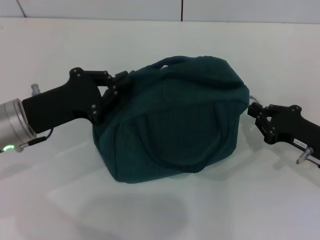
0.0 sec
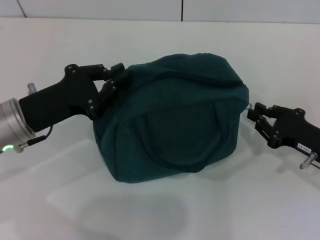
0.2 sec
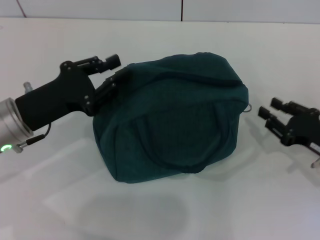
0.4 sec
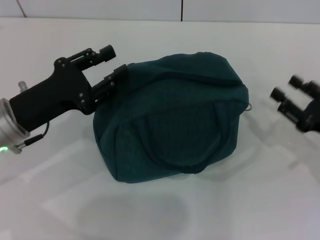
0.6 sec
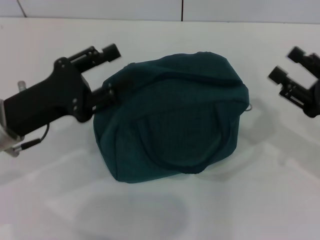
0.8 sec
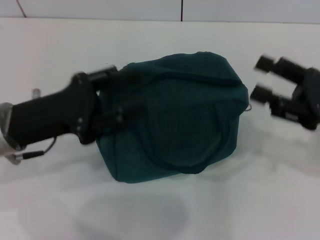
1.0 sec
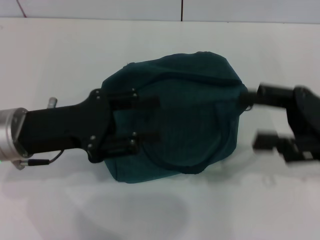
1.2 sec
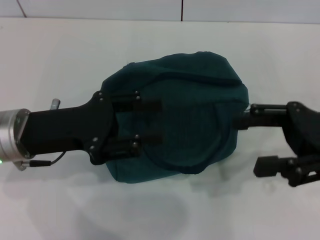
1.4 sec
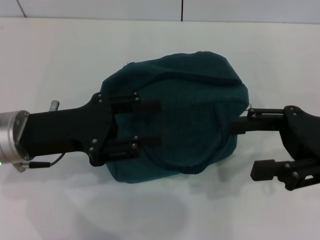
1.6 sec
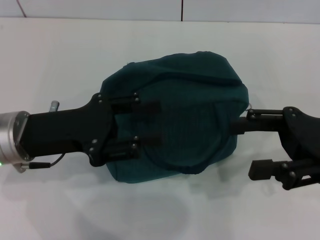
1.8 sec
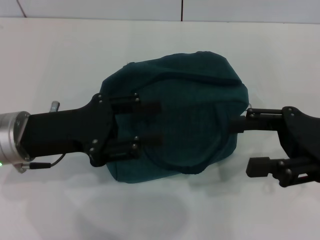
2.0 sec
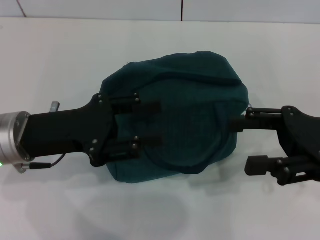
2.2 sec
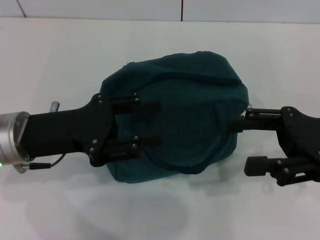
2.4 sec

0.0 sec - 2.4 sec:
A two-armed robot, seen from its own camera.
Step, 0.2 sec - 0.6 sec: Hold the lunch bag with your left hand.
0.0 sec - 1.2 sec: The right gripper goes some 10 cm upward, and opens its fingers; the left gripper opens up.
1.2 sec - 2.4 sec: The grippers make only small movements.

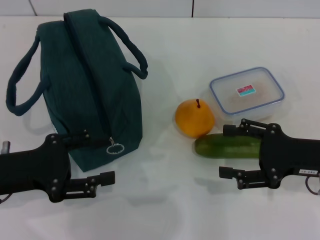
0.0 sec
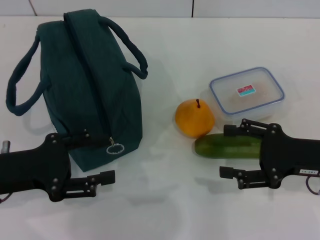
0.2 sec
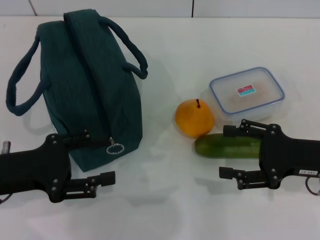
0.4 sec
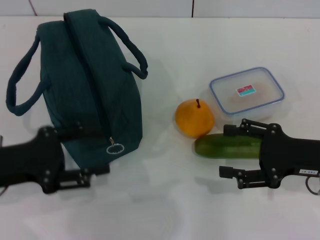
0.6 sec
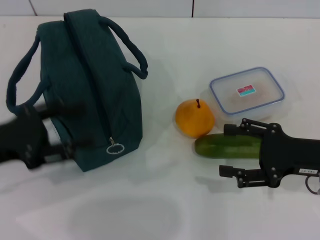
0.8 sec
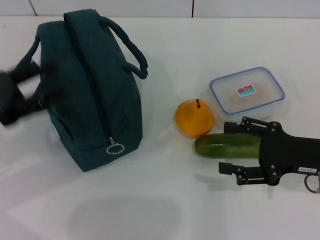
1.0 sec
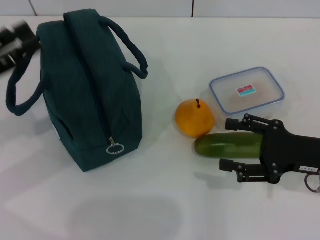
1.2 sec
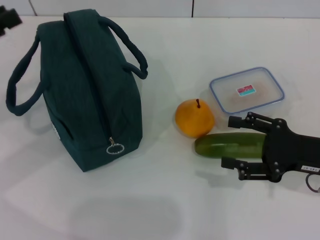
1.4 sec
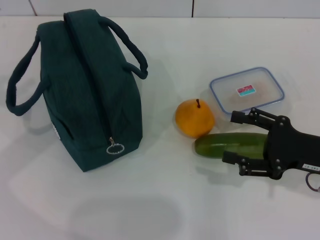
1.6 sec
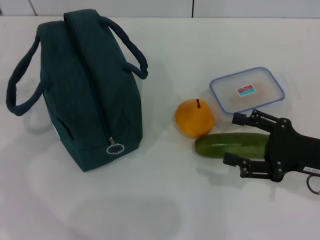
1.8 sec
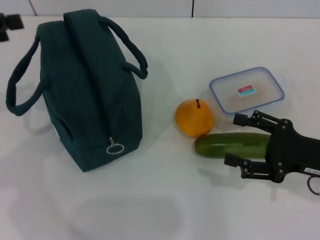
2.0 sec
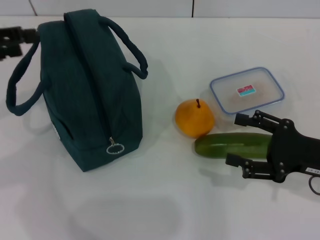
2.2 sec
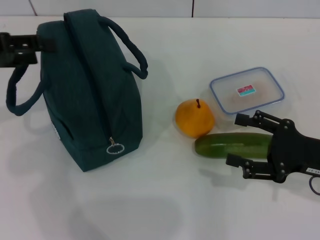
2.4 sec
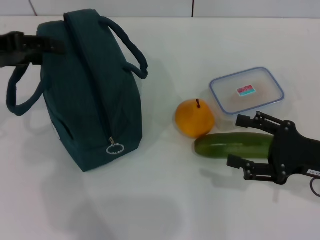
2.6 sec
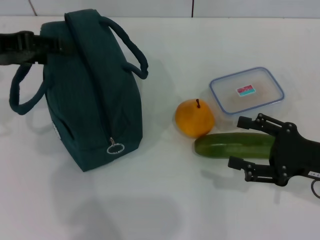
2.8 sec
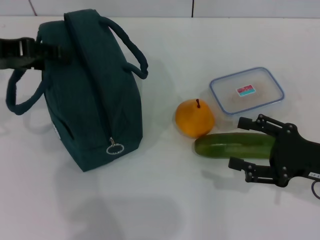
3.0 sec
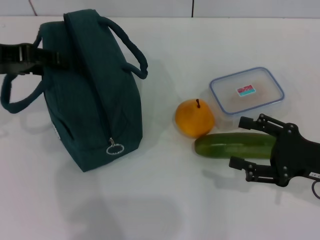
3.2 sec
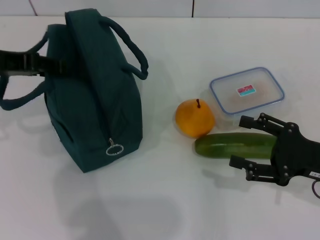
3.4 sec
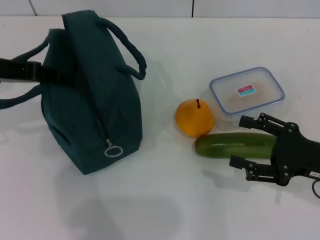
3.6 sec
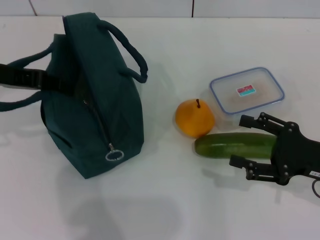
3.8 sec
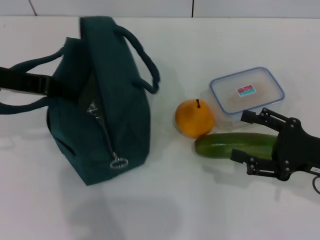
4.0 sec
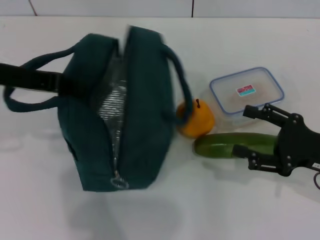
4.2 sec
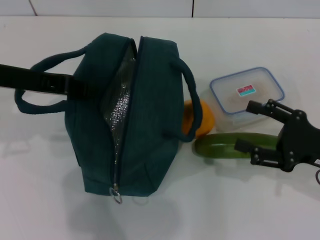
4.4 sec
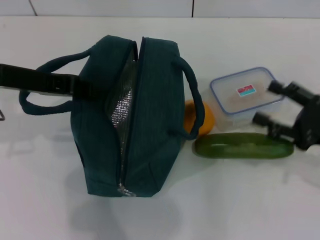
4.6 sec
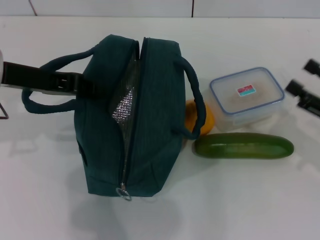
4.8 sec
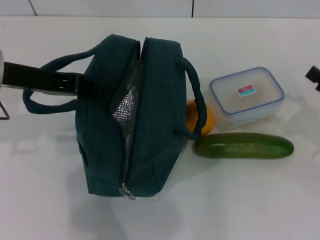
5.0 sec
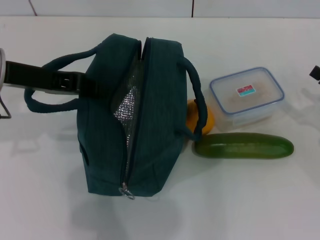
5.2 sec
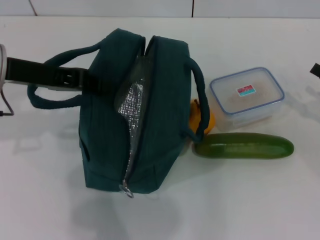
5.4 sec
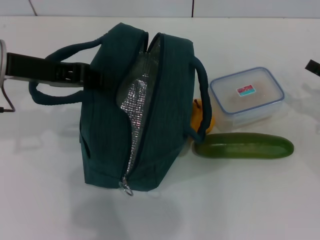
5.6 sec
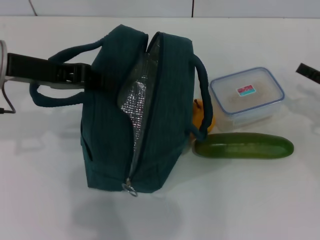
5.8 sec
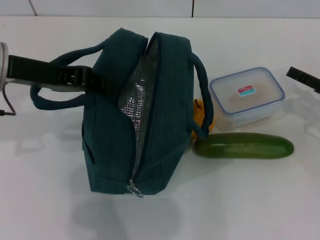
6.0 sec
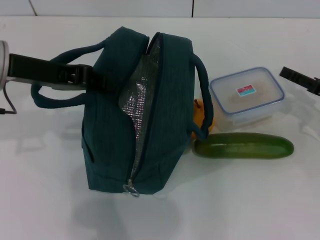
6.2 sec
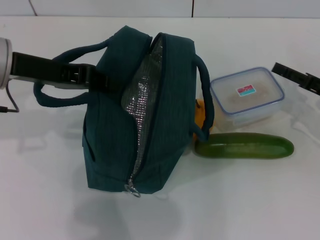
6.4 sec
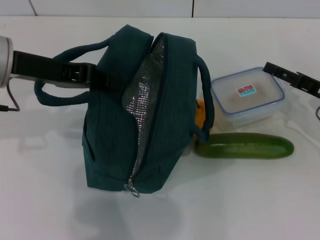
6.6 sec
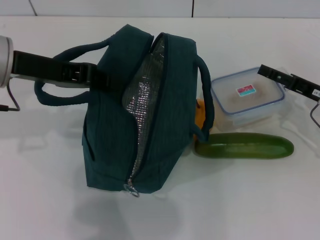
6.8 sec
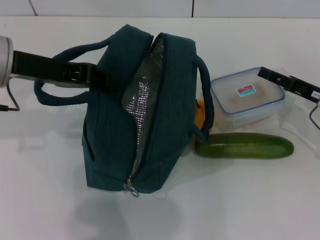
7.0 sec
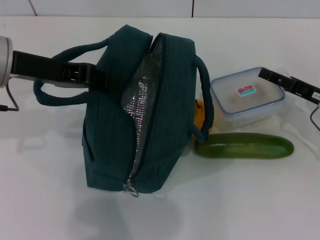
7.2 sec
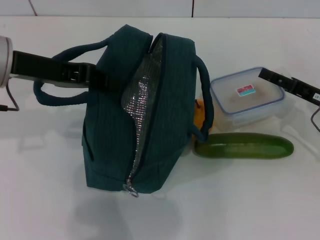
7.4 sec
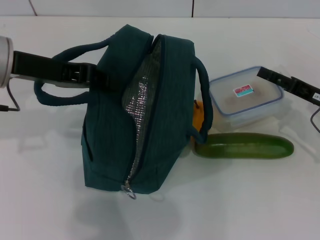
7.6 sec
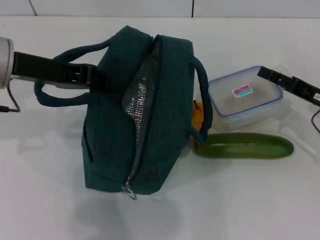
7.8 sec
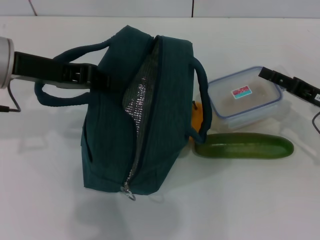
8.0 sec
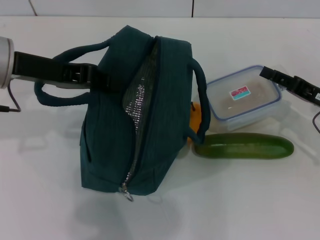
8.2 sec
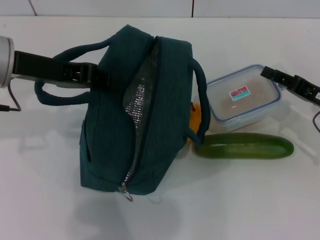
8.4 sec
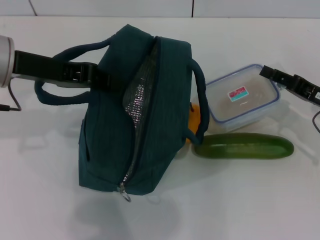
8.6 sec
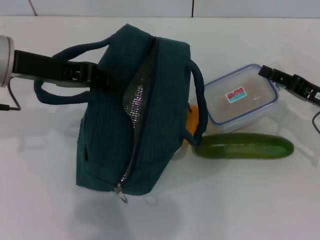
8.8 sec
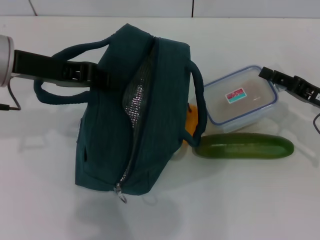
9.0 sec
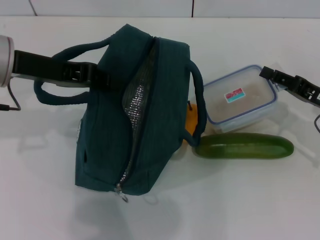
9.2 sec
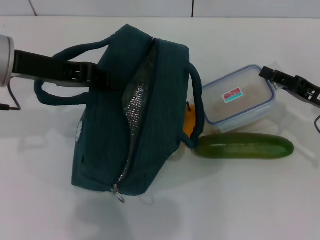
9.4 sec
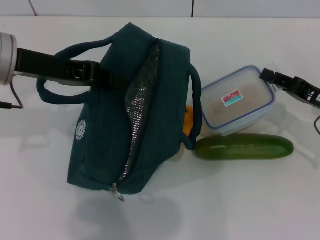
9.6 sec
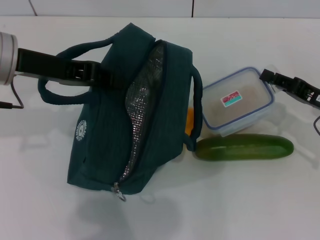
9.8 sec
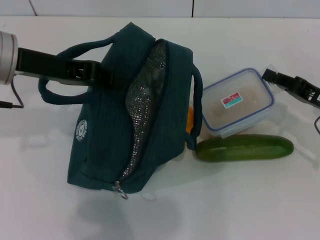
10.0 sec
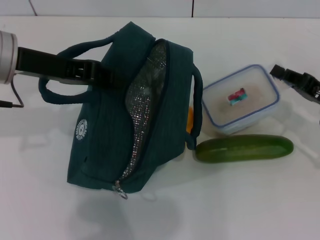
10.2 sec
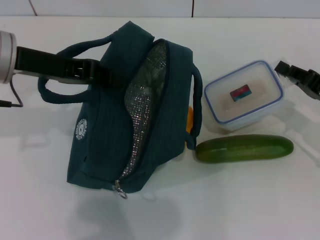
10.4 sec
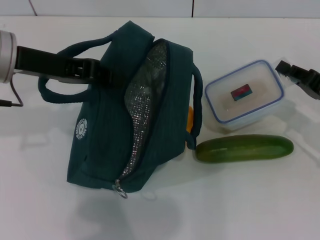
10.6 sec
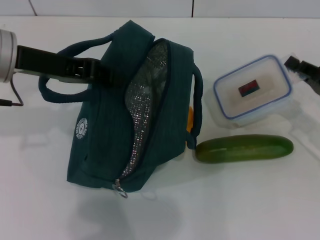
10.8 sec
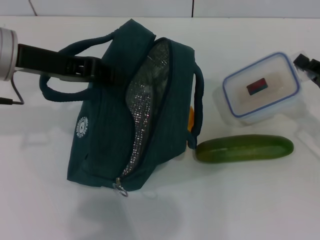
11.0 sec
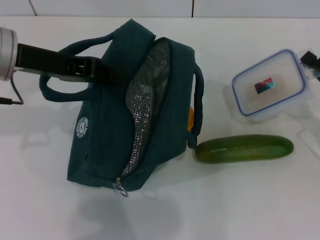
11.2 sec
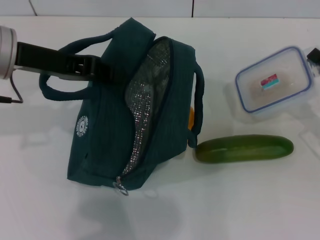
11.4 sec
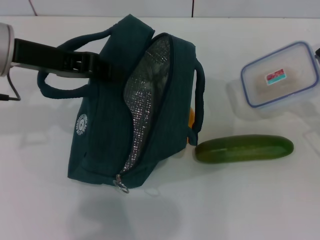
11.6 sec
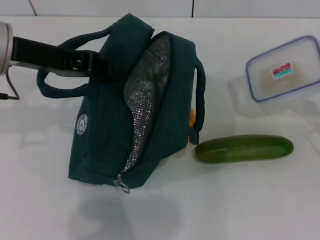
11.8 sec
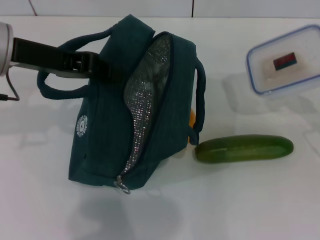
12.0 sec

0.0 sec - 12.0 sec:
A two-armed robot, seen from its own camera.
Step, 0.0 sec - 4.0 sec: Hold the lunch bag with your left hand.
Step, 4.2 sec - 10.4 sec: Pick up the lunch box with your right hand.
0.0 sec - 1.6 sec: The left gripper goes roughly 15 cm upward, to the left and forward.
1.6 sec - 3.0 sec: The left gripper shifts roughly 10 cm to the right.
3.0 sec - 4.4 sec: The left gripper closes its fingers.
4.4 sec - 6.0 sec: The right gripper travels forward and to the right by roughly 10 cm.
6.0 sec - 7.6 sec: The grippers move only a little.
7.6 sec - 9.0 sec: The right gripper closes.
9.0 sec - 10.4 sec: There are only small adjustments of the grippers.

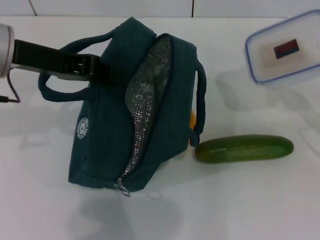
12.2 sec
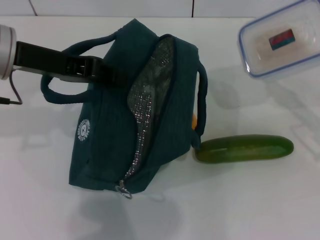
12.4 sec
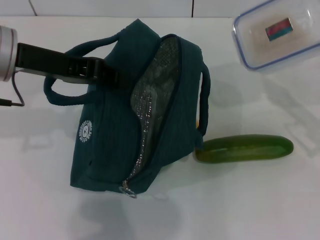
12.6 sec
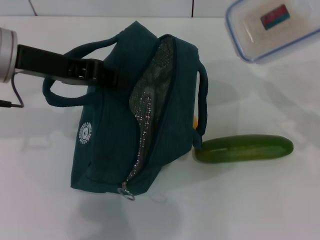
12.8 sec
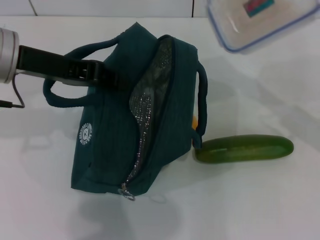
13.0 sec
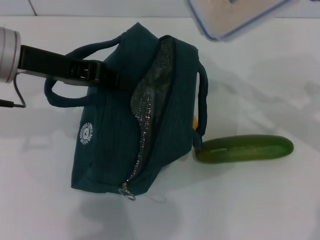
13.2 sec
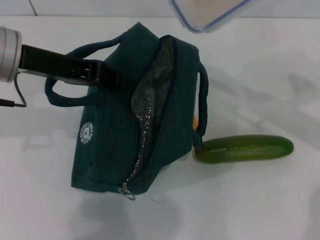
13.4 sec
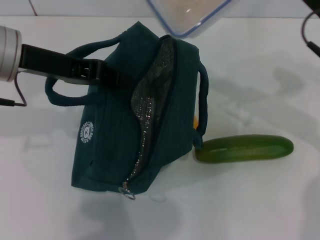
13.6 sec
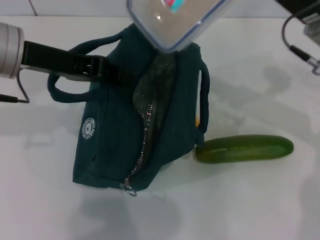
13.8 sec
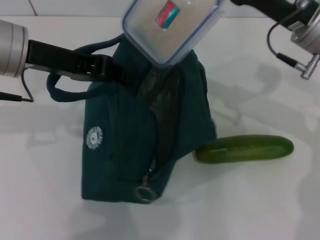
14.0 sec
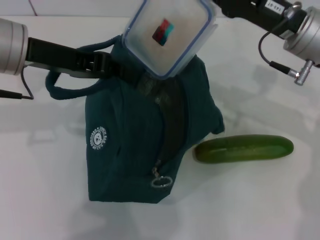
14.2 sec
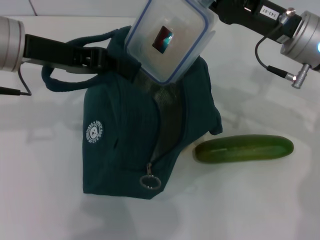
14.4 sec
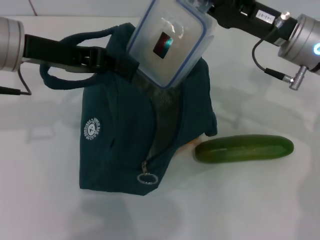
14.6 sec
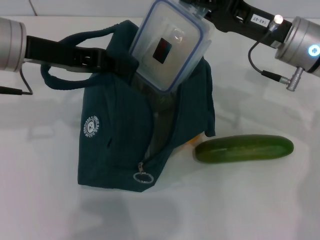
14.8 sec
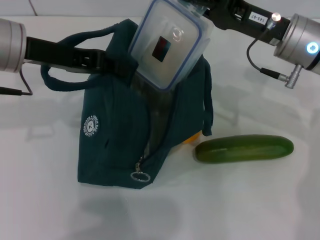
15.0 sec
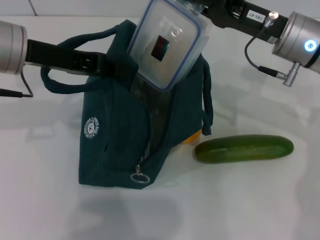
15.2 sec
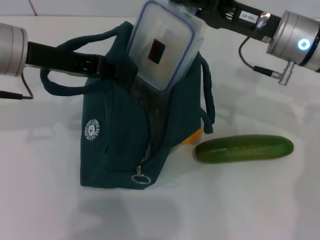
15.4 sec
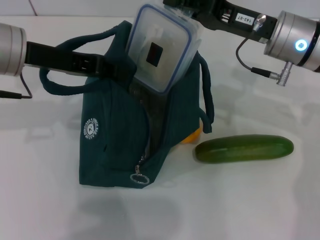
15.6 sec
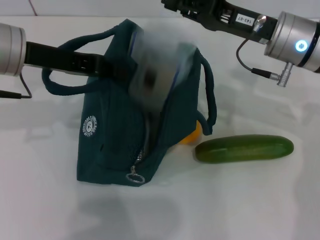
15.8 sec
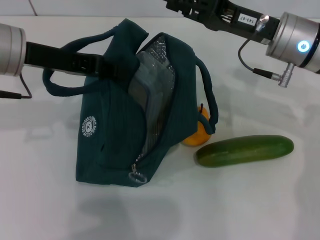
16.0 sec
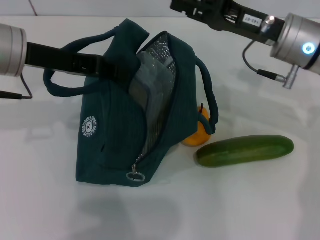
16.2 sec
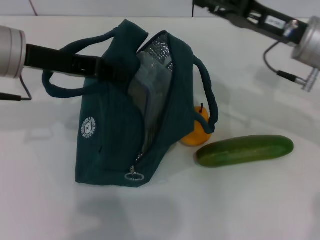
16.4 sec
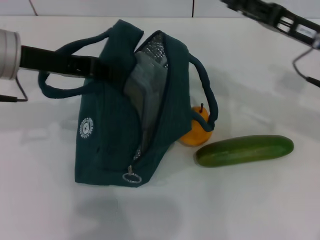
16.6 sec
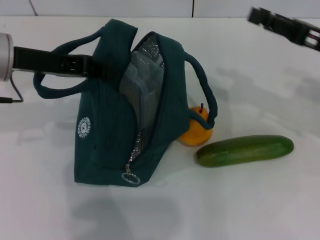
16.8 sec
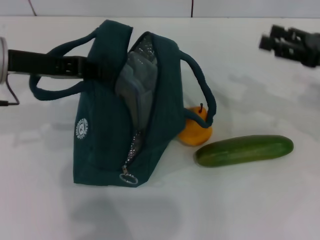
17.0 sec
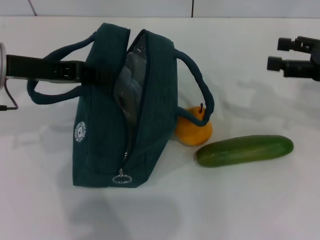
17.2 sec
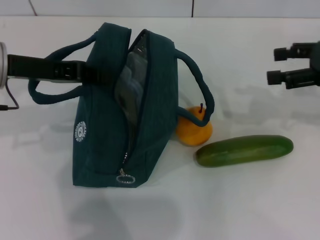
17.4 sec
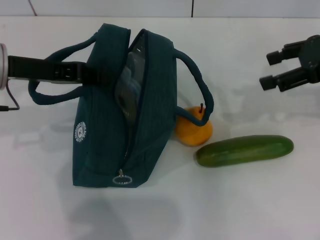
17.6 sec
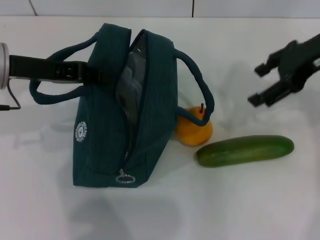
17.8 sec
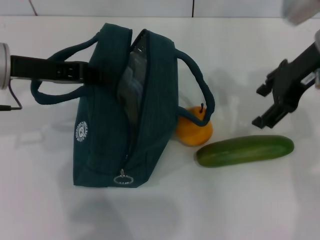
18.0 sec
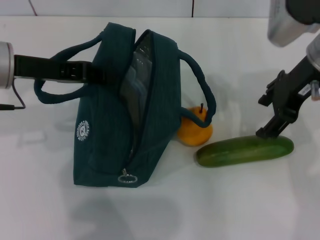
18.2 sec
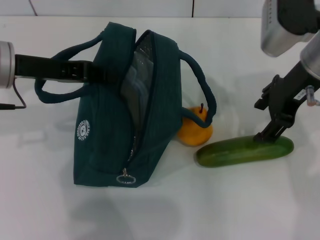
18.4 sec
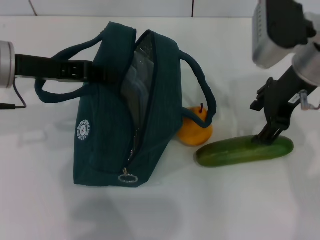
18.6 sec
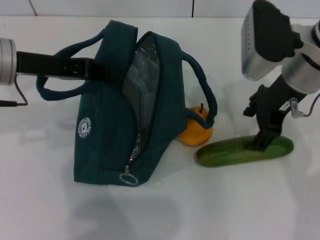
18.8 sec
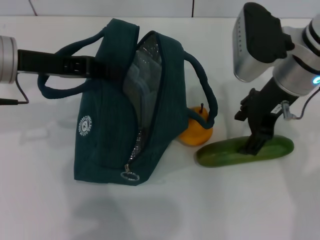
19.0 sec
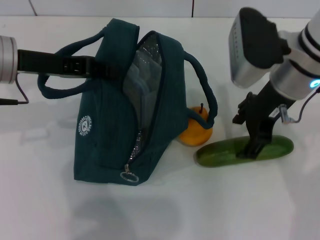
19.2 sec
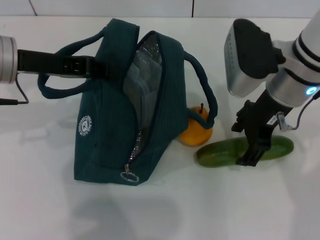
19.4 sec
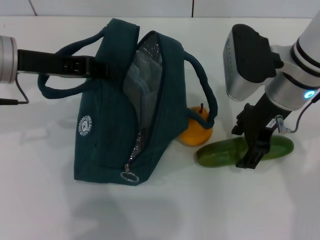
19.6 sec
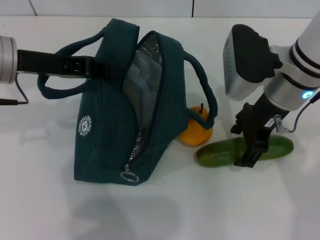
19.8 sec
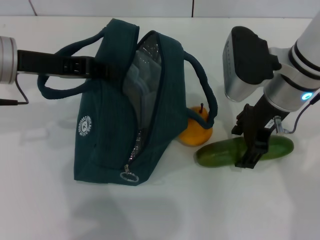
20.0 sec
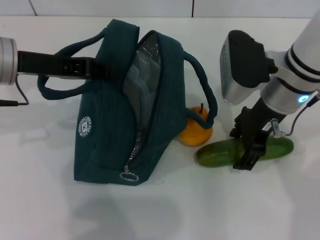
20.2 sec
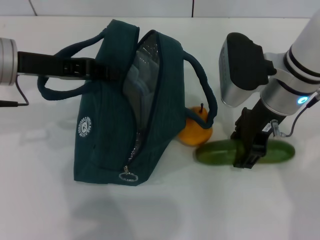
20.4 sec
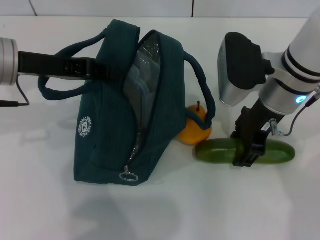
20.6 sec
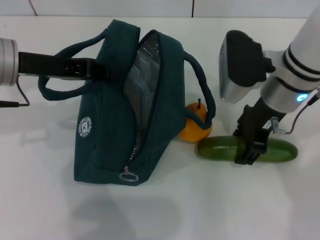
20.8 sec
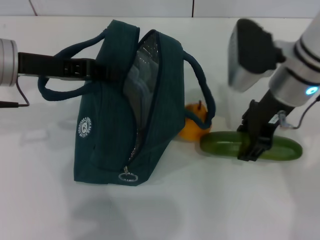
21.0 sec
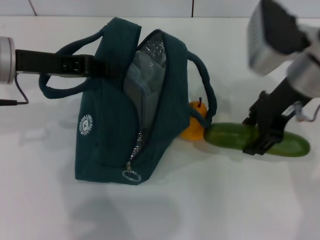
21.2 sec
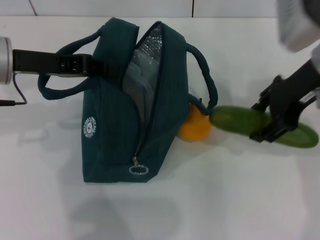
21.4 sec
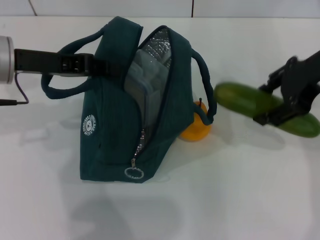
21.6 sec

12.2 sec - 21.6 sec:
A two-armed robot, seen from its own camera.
Step, 12.2 sec - 16.6 sec: Place the lunch box into the lunch bag with your right hand.
Step, 16.8 sec - 20.6 sec: Pick up the cucumber with your right hand.
12.2 sec - 13.8 sec: The right gripper shifts roughly 20 cm to the left, upward and forward.
13.8 sec - 15.4 sec: There are only small adjustments of the grippers.
15.4 sec - 17.0 sec: The right gripper heads to the right, covering approximately 15 cm, and opens up.
17.0 sec - 18.4 sec: The right gripper travels to the left and upward by about 15 cm.
18.4 sec - 20.0 sec: The right gripper changes place by some 5 cm.
20.0 sec - 21.6 sec: The right gripper goes some 10 cm upward and to the right.
